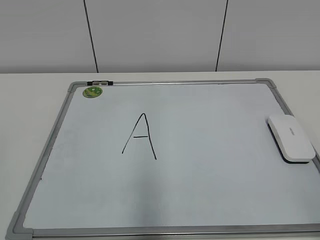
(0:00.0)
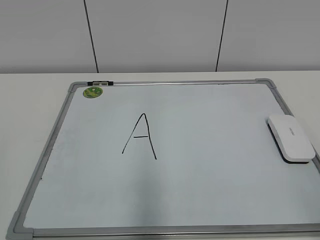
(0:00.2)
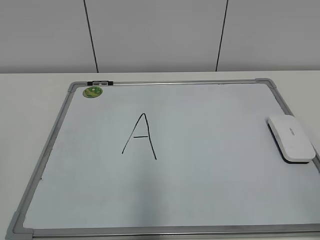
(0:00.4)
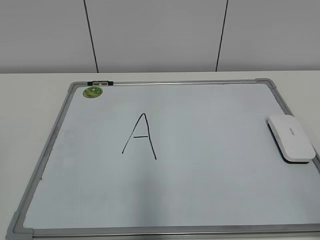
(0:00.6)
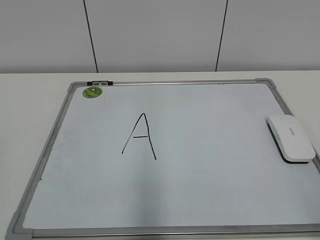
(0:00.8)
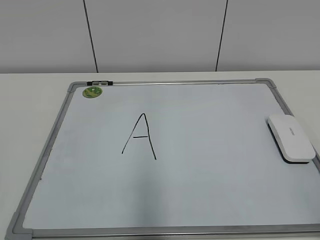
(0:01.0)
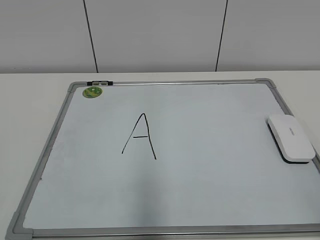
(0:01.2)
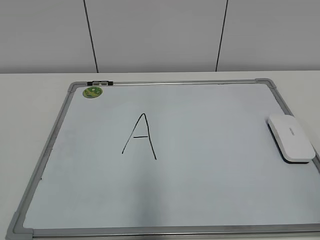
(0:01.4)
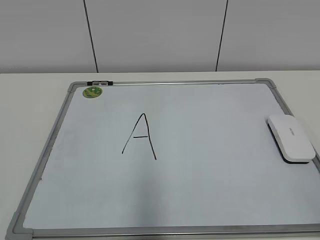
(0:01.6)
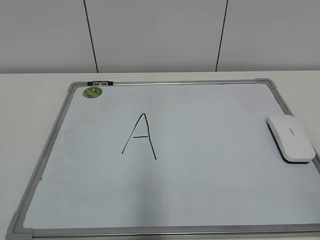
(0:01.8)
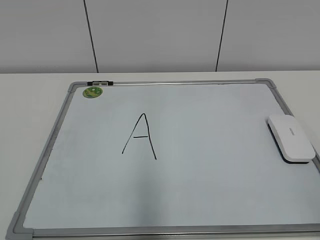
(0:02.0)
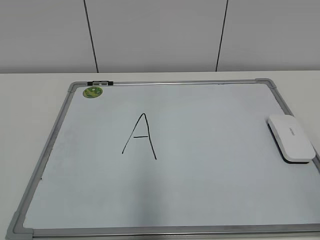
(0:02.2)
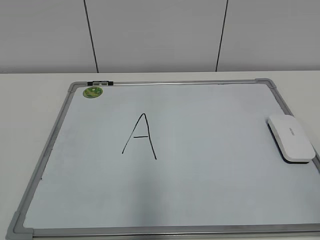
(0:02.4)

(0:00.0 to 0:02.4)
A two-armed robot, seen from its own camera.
Task of the whole recording: pick up the eraser on the blackboard and erase the letter "a".
0:01.2 - 0:02.4: Neither gripper changes place.

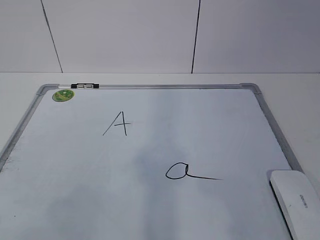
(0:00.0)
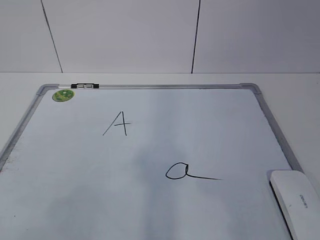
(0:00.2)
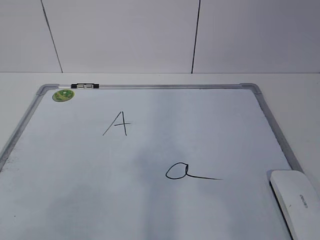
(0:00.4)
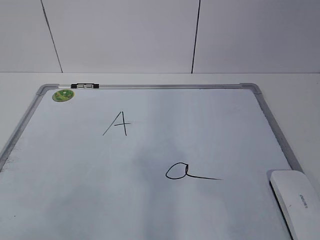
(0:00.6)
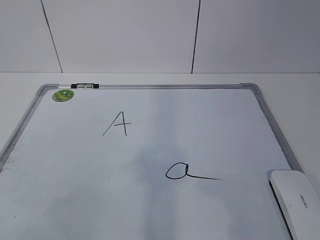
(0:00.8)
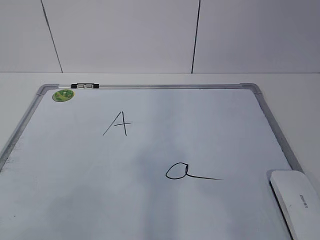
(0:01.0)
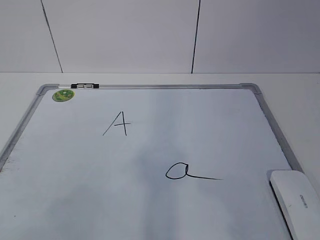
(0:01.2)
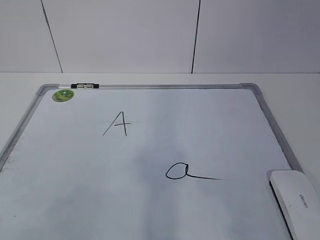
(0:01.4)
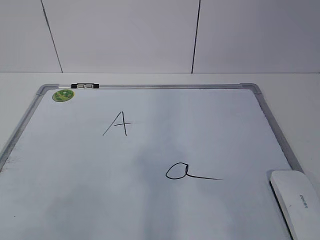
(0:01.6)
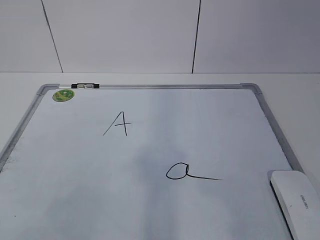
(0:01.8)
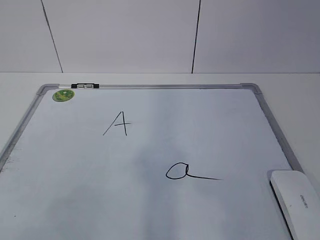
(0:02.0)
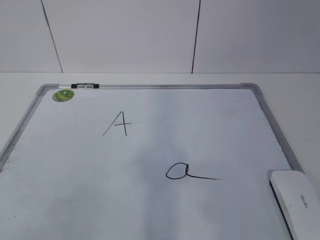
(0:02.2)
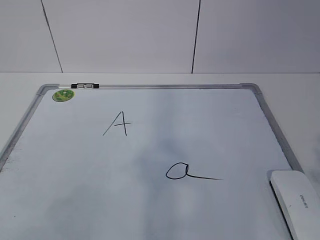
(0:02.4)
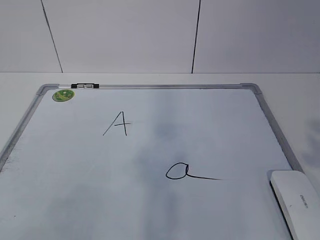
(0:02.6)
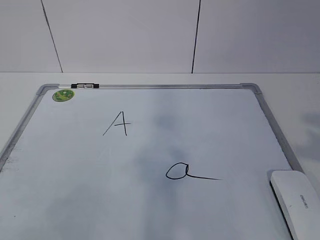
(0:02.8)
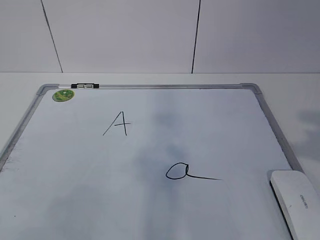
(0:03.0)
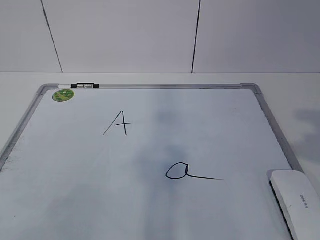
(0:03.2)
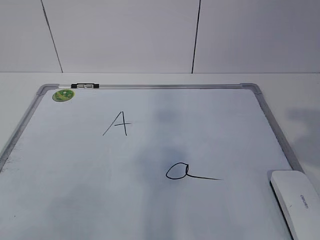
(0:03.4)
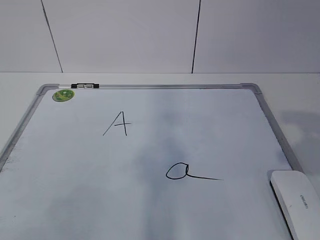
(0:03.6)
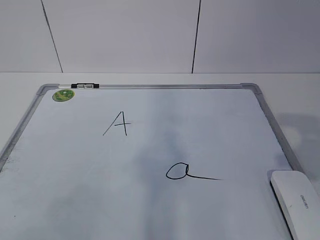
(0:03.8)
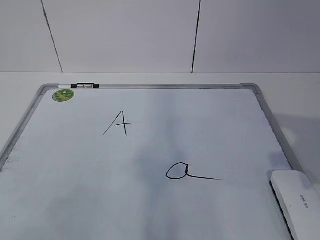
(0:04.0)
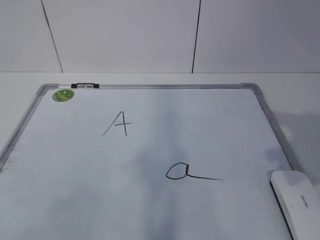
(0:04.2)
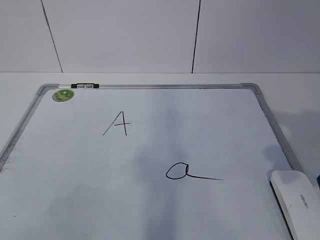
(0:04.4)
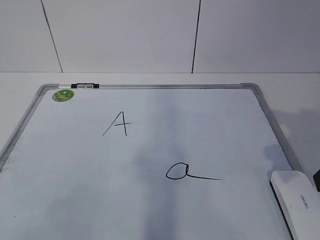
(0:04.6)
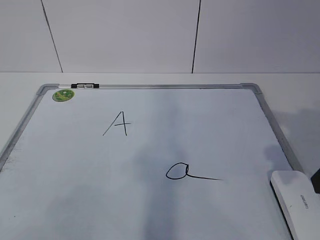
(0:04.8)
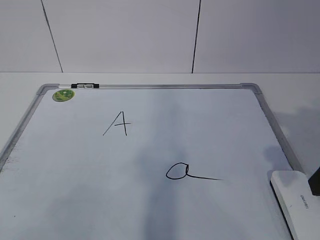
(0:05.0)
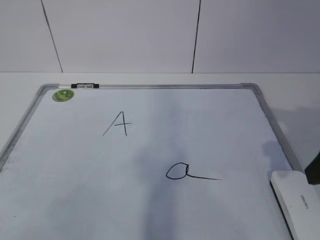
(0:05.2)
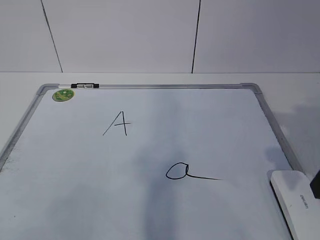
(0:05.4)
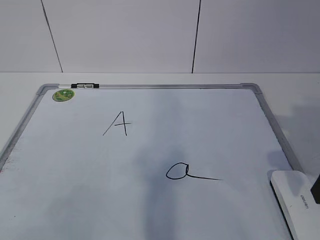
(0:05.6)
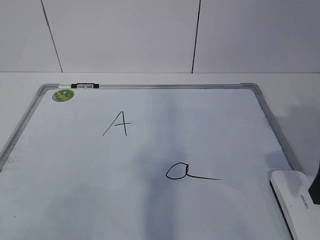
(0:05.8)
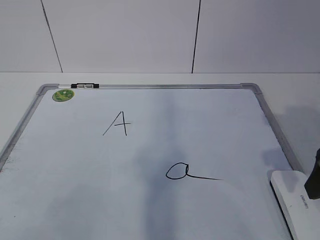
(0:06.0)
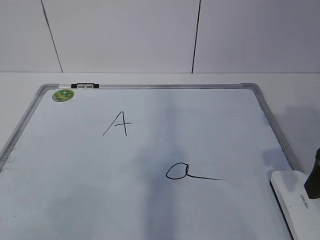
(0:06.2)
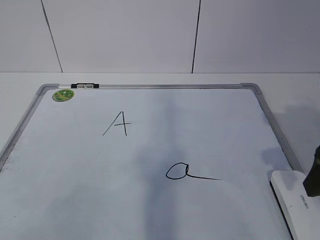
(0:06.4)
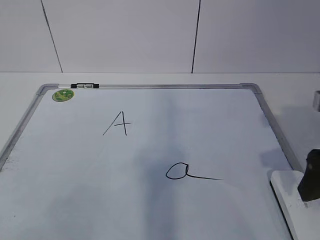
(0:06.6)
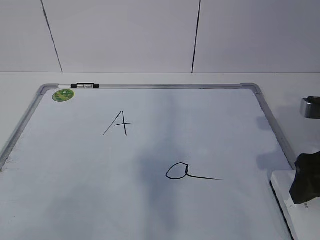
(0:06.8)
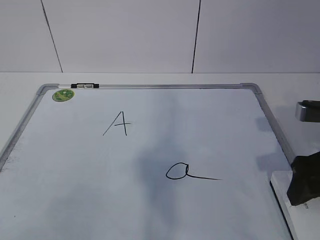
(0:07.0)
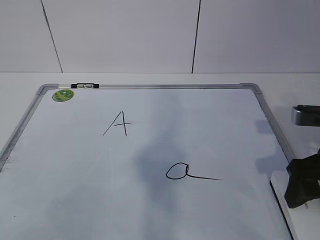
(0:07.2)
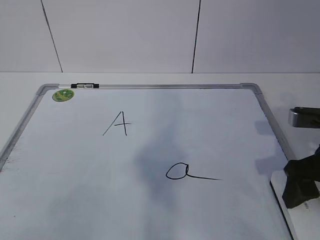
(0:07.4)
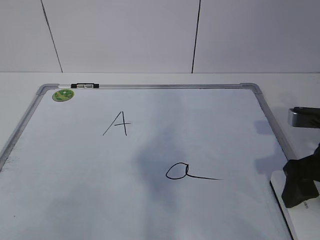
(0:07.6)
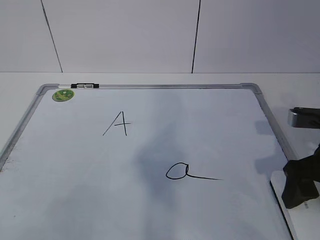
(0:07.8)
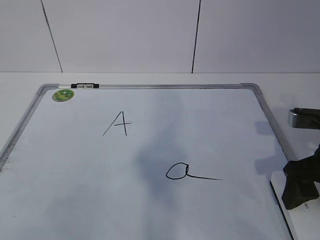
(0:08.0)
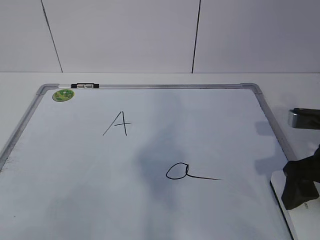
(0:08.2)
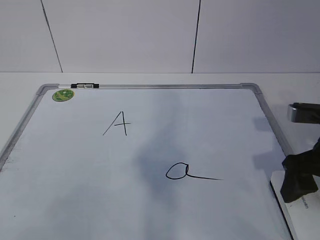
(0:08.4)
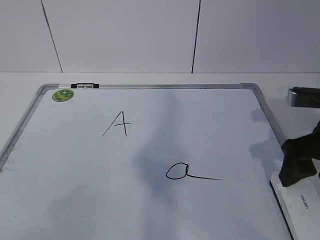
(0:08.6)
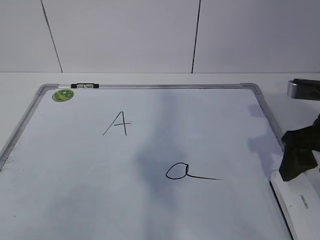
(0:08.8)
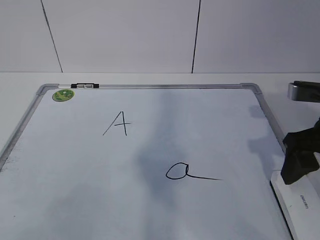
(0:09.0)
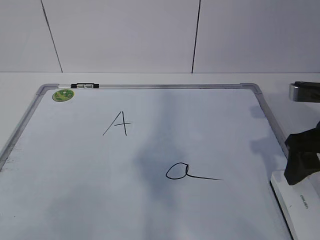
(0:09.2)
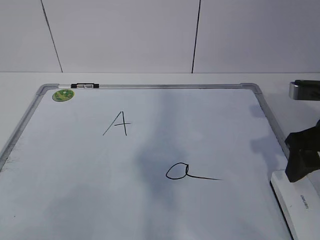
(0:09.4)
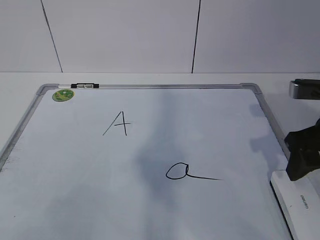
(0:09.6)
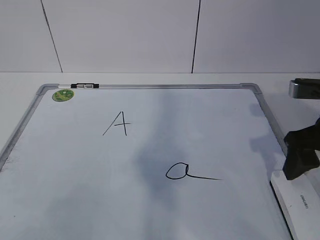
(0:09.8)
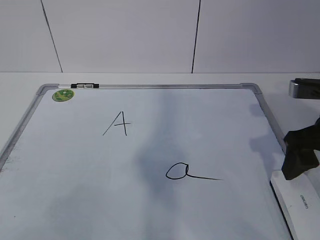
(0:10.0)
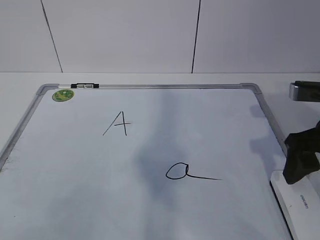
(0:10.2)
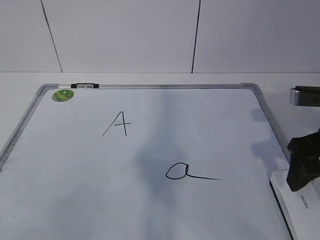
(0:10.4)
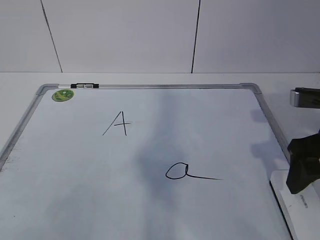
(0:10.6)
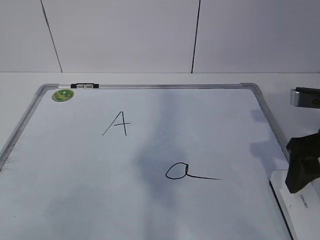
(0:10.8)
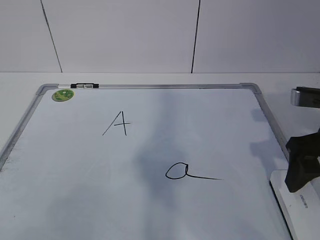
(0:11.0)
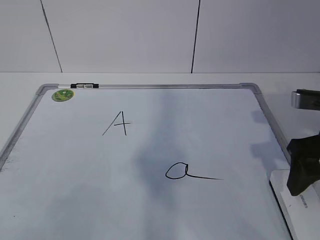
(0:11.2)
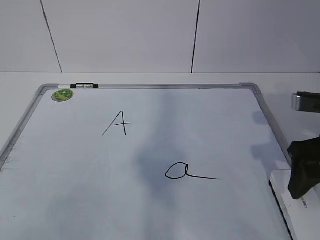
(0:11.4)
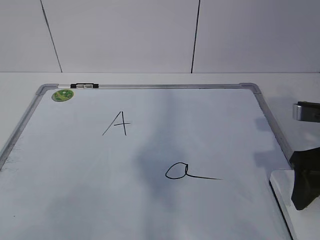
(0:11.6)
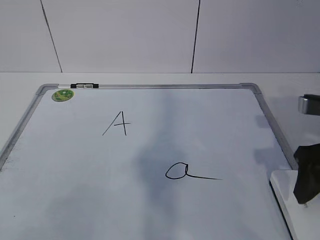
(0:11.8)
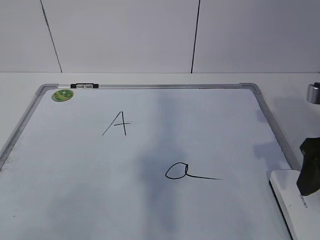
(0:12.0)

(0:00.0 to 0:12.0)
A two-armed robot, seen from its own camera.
Task of the whole recording: pick up the eraser on the blackboard and erase the letter "a".
0:03.0 - 0:04.4: The right gripper is displaced forward and downward by roughly 10 cm, and opens.
0:06.0 - 0:07.6: The right gripper goes roughly 5 cm downward.
0:07.6 - 0:09.0: The grippers move only a little.
0:09.0 - 0:10.4: Both grippers stay put.
0:10.4 - 0:12.0: The grippers make only small movements.

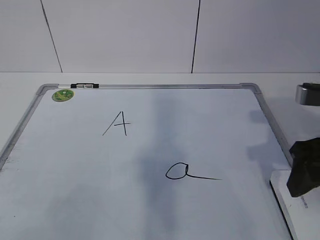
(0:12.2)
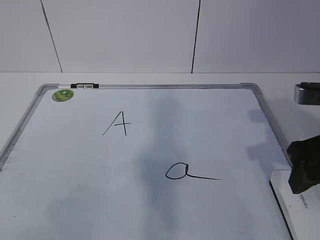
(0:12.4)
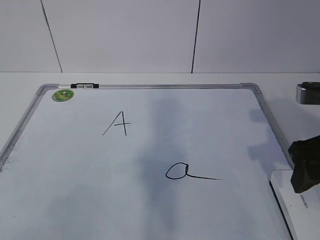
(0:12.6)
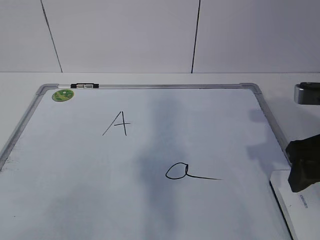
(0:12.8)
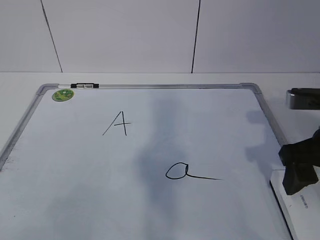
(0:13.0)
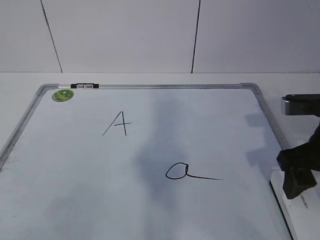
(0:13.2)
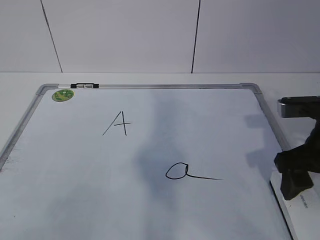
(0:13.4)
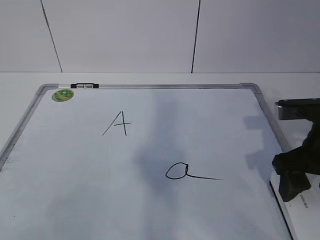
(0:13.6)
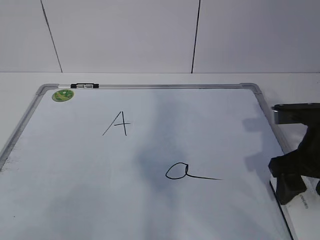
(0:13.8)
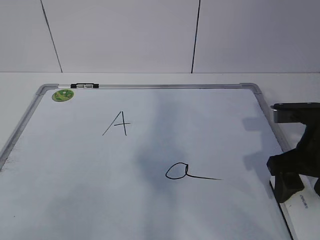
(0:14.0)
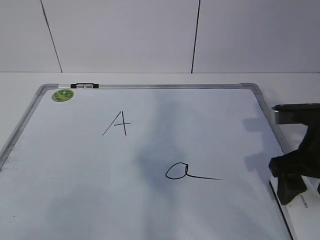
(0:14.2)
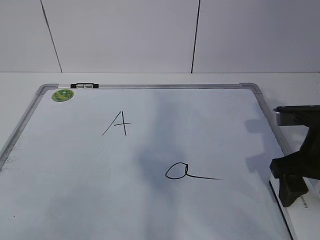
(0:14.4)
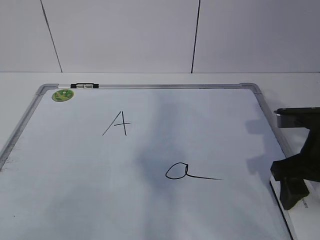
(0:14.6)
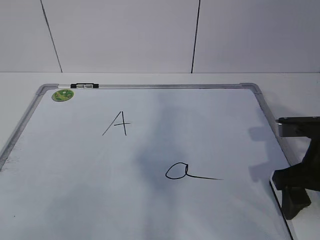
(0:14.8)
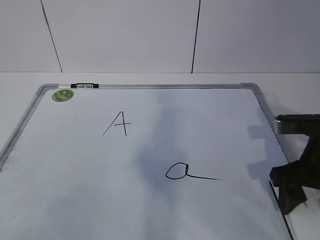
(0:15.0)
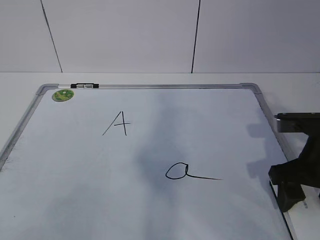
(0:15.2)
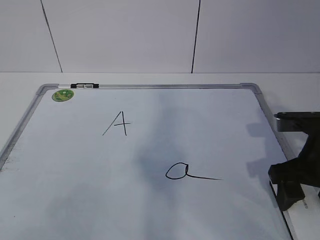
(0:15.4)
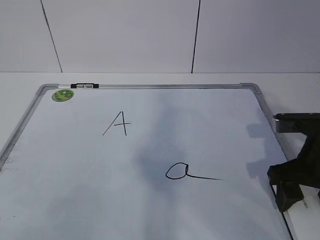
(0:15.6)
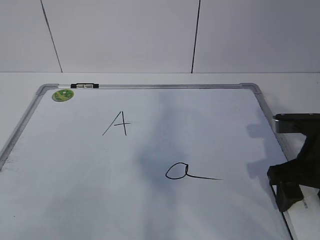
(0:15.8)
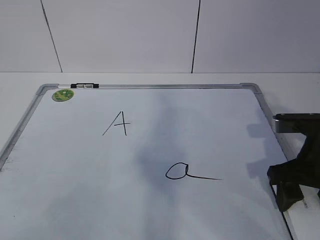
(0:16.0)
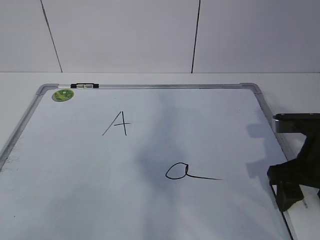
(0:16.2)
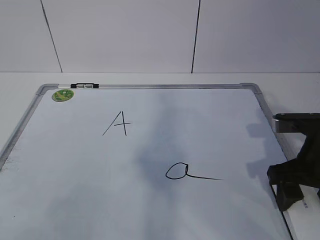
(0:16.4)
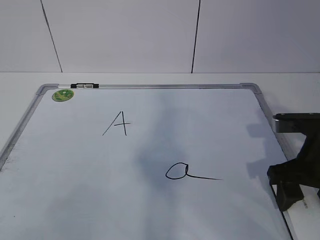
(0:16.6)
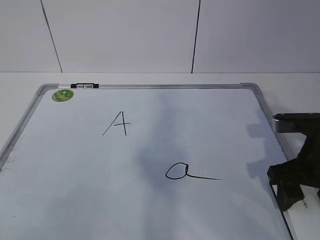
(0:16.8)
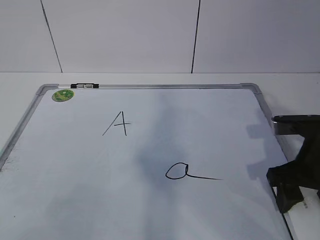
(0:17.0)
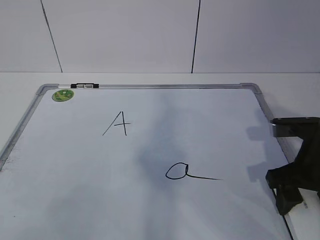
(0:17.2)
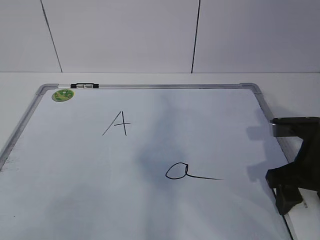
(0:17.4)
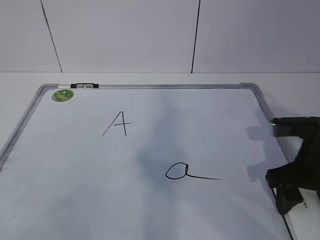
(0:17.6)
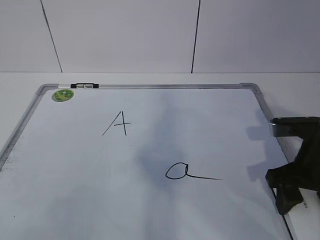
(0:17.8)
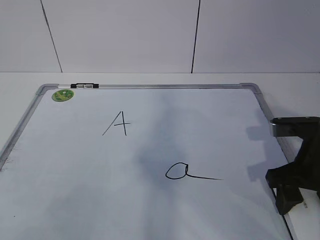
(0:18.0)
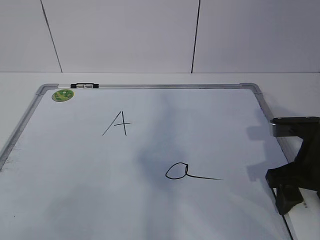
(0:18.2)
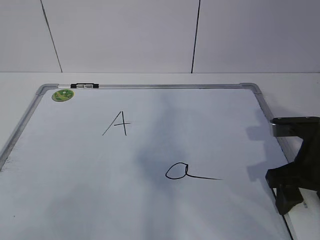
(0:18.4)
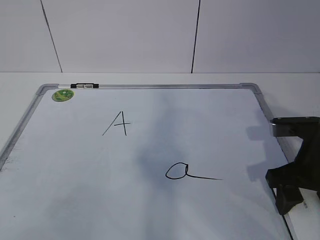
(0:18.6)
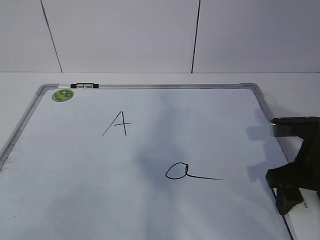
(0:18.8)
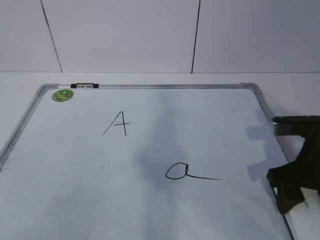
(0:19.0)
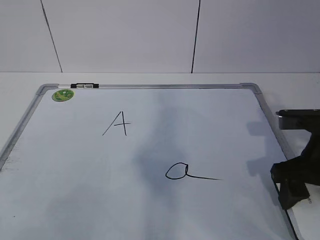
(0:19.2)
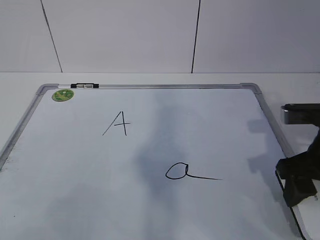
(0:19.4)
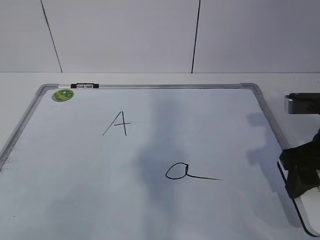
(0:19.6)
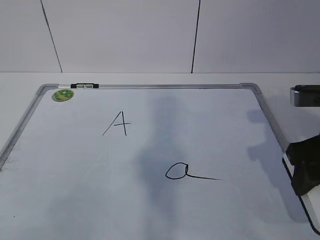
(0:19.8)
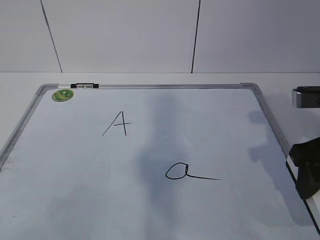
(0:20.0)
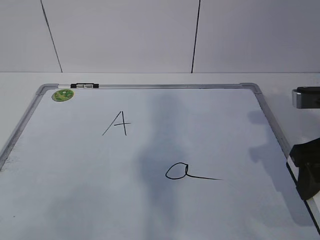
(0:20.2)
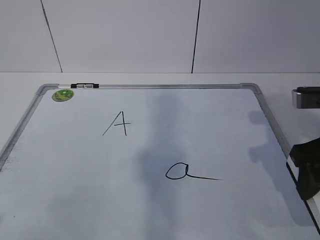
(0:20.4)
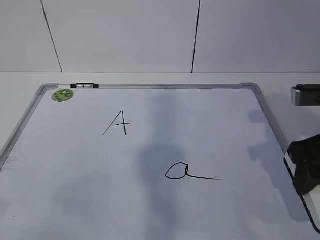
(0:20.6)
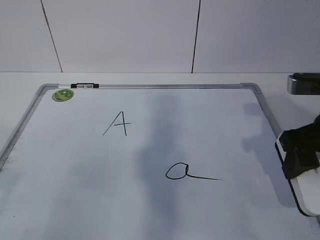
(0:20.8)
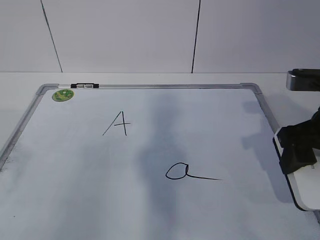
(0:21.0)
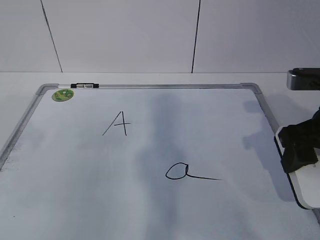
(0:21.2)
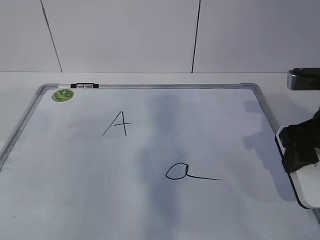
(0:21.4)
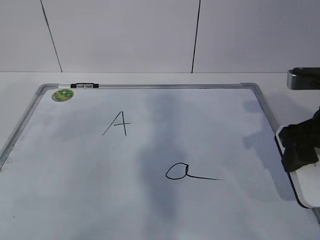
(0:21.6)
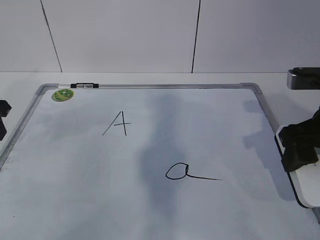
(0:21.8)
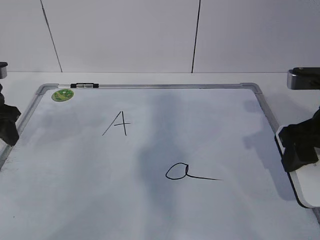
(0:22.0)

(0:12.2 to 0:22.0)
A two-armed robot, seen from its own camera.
Task of the whole recording: pick up the eraser on the blackboard and erase the letter "a".
Step, 0:12.2 - 0:15.6: Grab the eraser with your right hand.
0:12.2 - 0:13.6: There are only small adjustments of the grippers.
0:13.6 - 0:15.0: The grippers move only a little.
0:15.0 - 0:17.8: The two grippers keep their place.
0:17.8 - 0:19.2: The grippers stay close to where they were, moving slightly.
0:19.2 - 0:20.6: The right gripper travels upward by approximately 5 cm.
0:20.6 - 0:22.0: The left gripper is displaced forward by roughly 30 cm, and opens.
